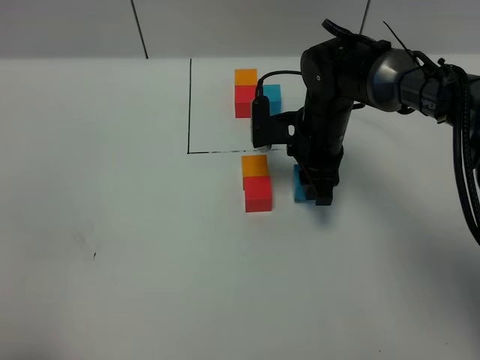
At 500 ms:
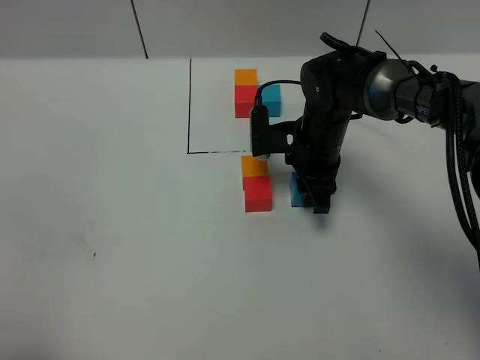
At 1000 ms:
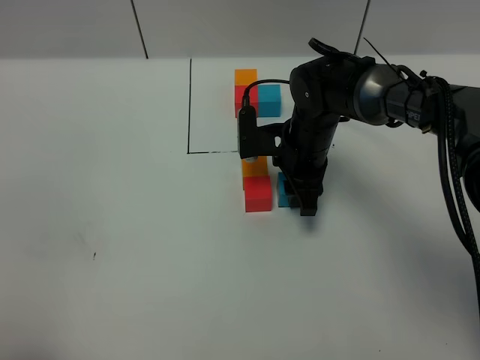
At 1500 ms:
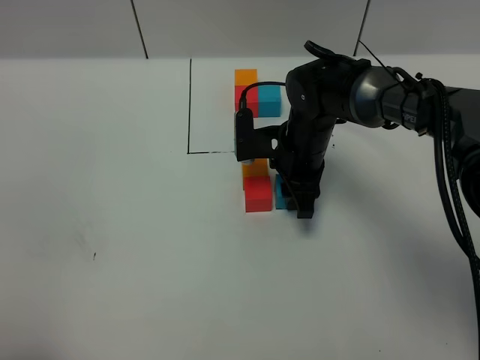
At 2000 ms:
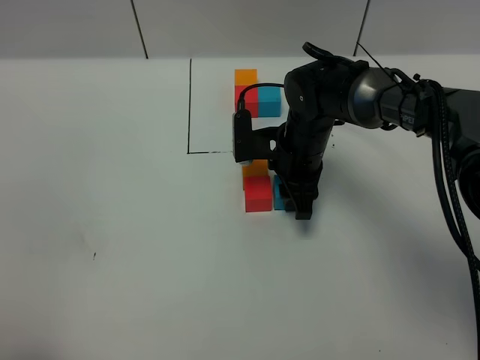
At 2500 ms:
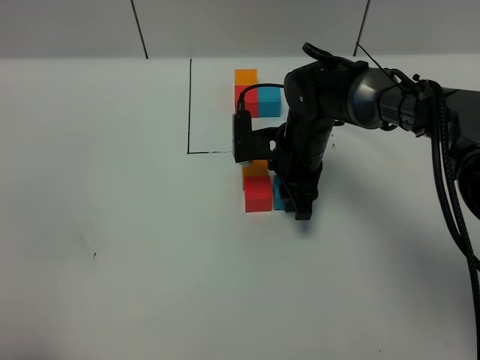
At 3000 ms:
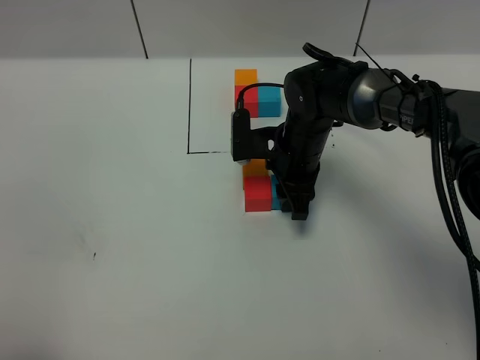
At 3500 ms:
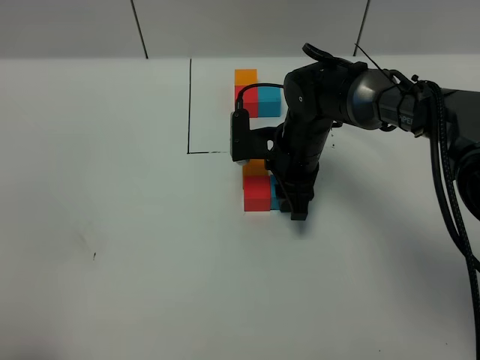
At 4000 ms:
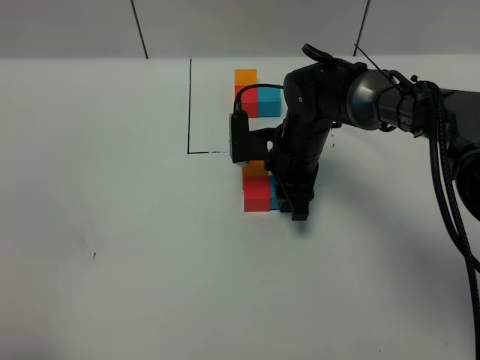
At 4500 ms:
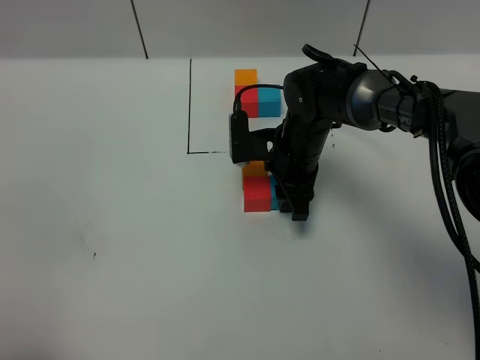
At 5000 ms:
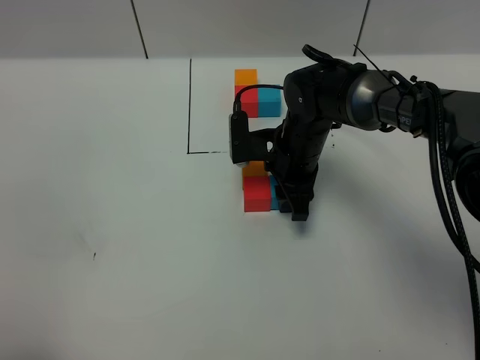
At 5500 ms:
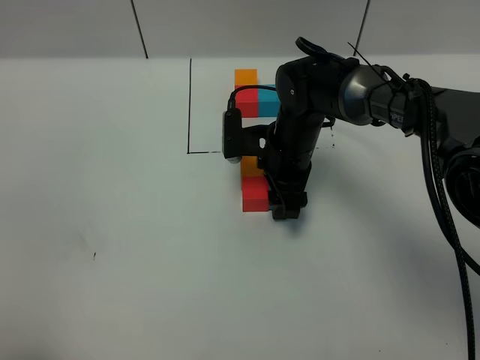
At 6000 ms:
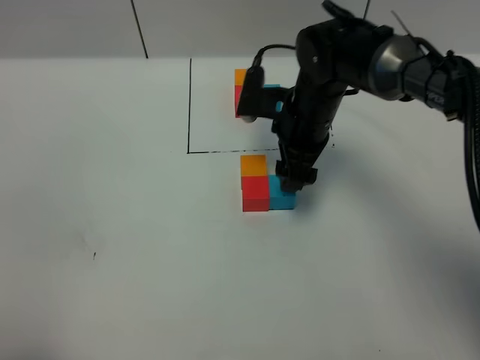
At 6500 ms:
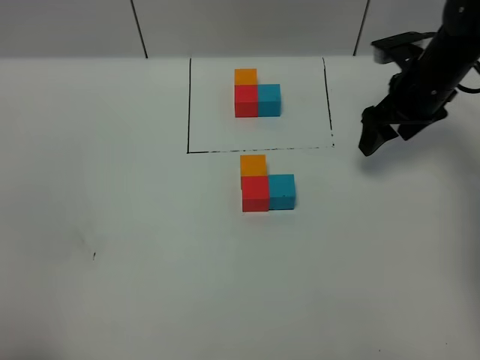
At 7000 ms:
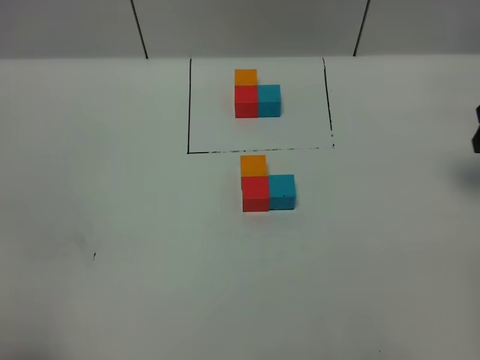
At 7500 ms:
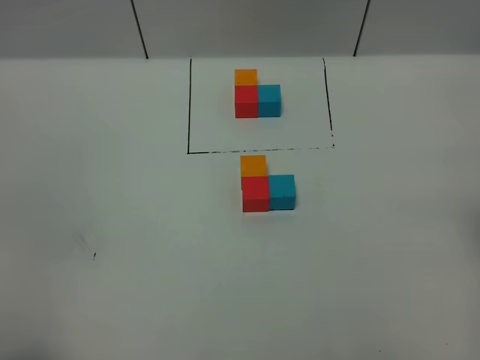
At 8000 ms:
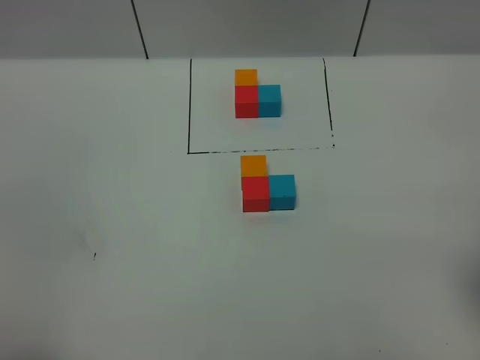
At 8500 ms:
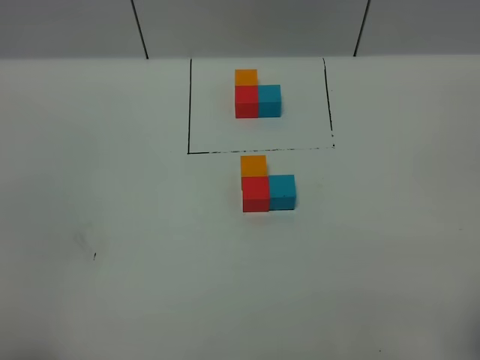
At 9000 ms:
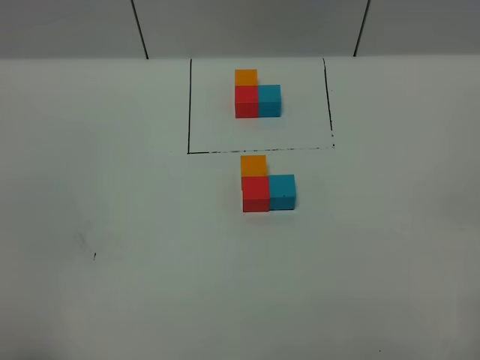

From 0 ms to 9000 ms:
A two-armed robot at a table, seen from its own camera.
Task of the whole recording: According to the building block template in front, assemble the scattered blocks together.
Step, from 0 ms to 5500 ms: Put the blue build block on the right of the red build block.
From 0 ms to 2000 ms: The grippers stay close to where they were, moving slightly.
From 2000 ms to 4500 ms: Neither gripper changes place.
From 4500 ms to 7000 ms: The right gripper goes roughly 30 cm to the right and upward, and opens.

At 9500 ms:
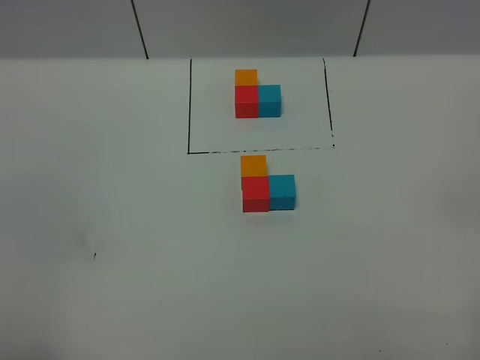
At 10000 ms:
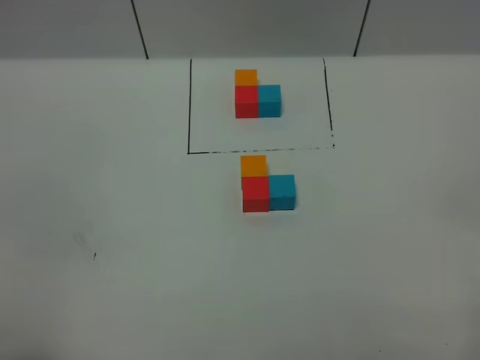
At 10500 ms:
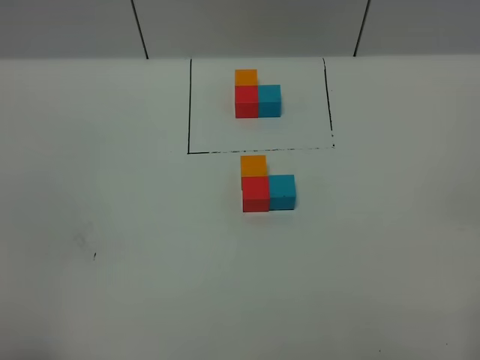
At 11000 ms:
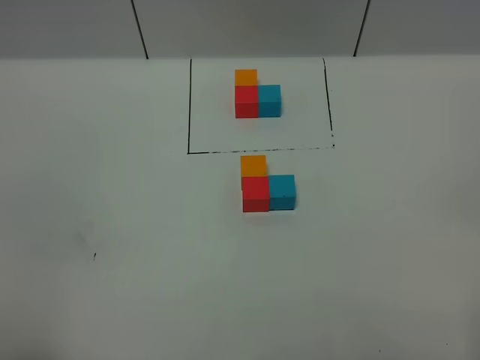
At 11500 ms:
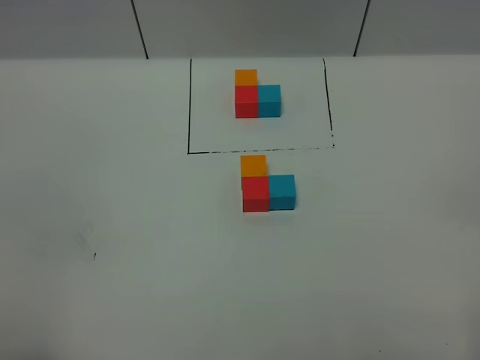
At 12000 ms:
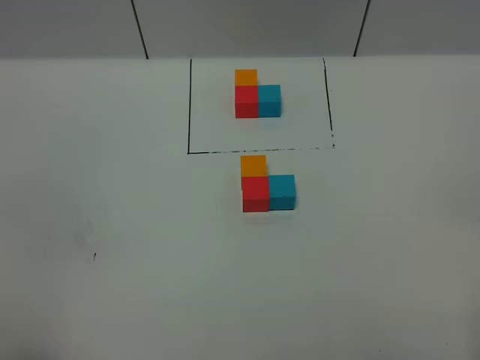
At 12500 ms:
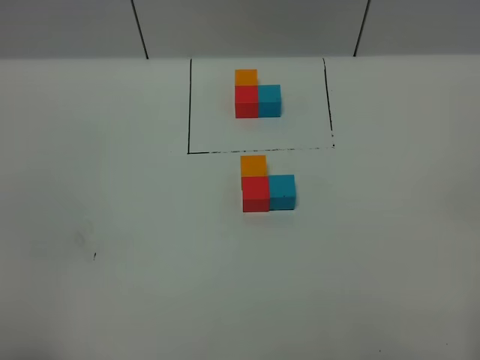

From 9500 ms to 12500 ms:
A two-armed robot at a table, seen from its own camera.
Task of the whole recording: According to the building block template in front, assemble the scattered blocks together.
From 11000 ms to 12500 ms: The two grippers keep their place.
